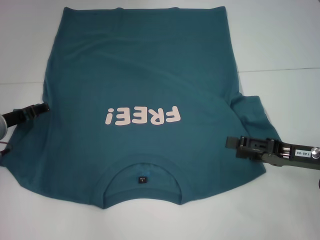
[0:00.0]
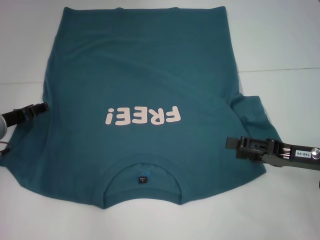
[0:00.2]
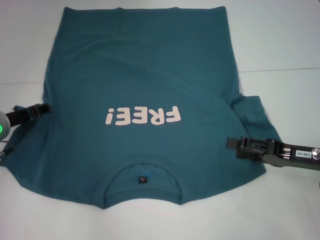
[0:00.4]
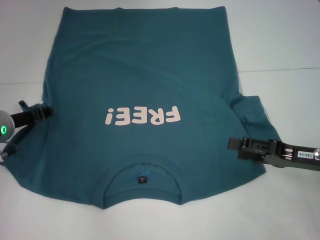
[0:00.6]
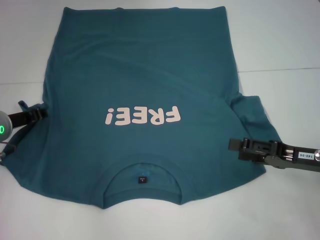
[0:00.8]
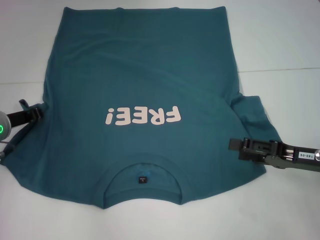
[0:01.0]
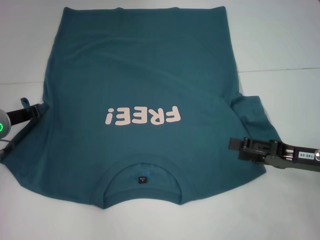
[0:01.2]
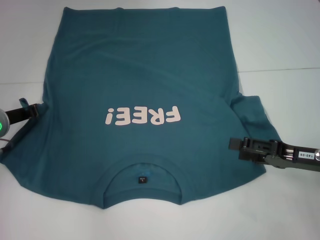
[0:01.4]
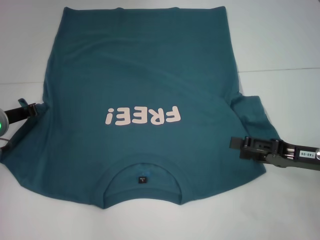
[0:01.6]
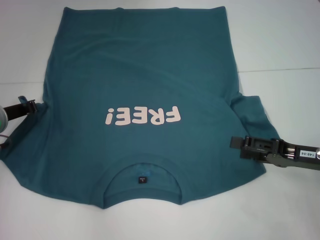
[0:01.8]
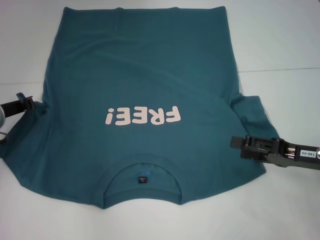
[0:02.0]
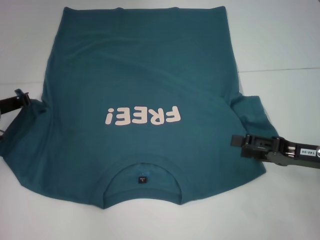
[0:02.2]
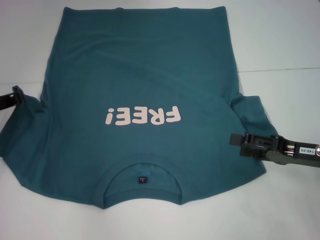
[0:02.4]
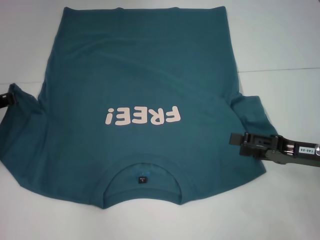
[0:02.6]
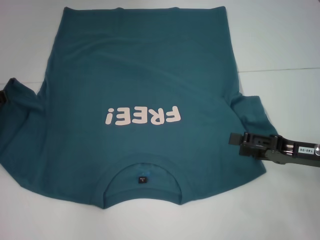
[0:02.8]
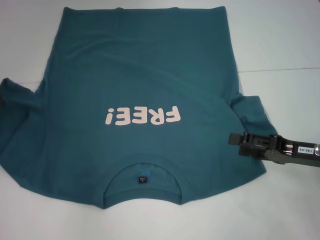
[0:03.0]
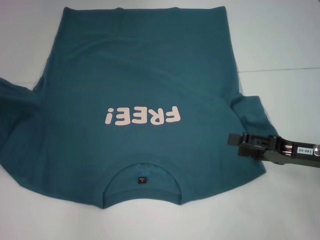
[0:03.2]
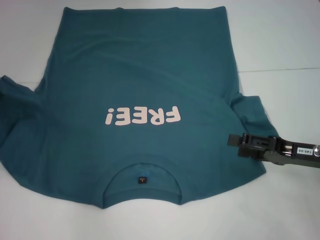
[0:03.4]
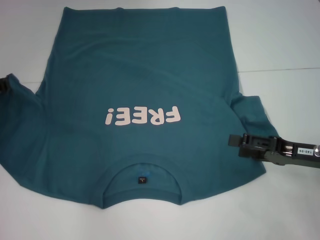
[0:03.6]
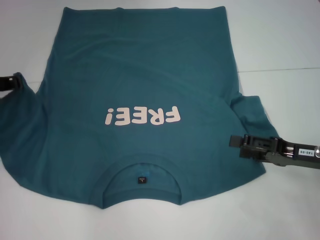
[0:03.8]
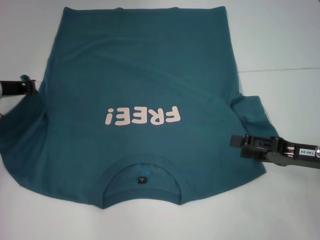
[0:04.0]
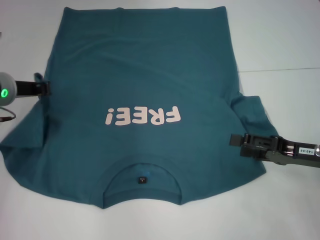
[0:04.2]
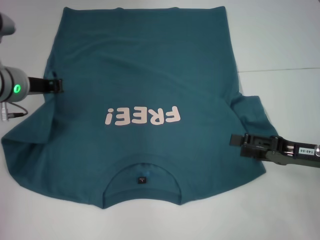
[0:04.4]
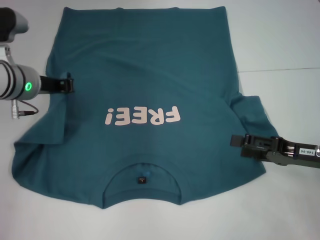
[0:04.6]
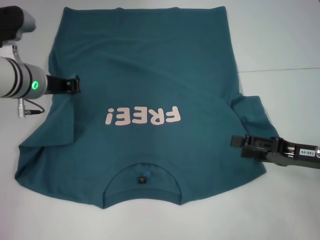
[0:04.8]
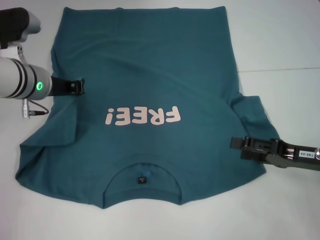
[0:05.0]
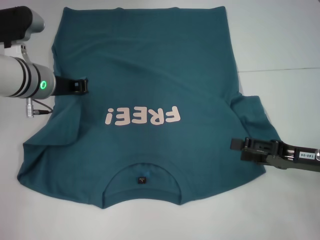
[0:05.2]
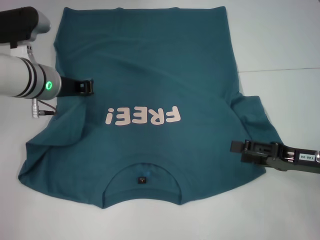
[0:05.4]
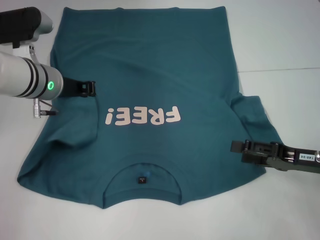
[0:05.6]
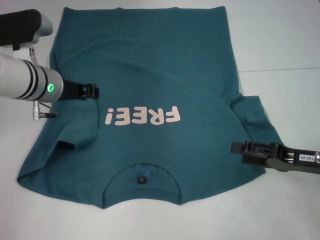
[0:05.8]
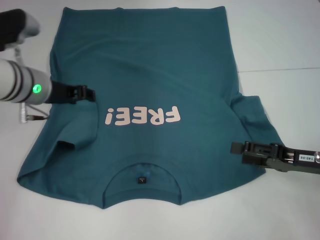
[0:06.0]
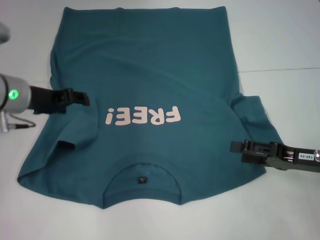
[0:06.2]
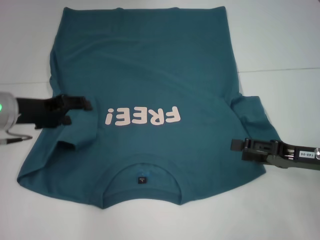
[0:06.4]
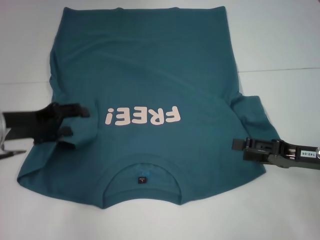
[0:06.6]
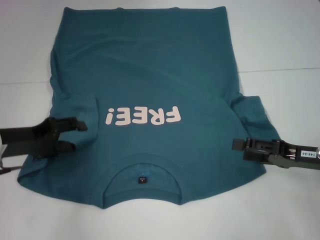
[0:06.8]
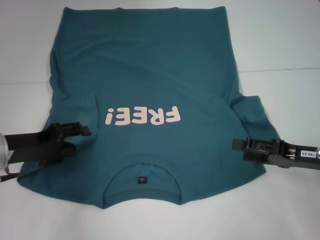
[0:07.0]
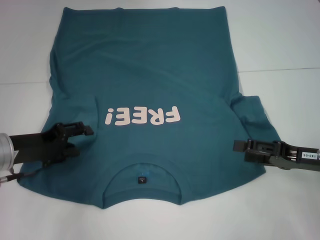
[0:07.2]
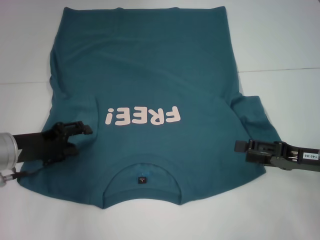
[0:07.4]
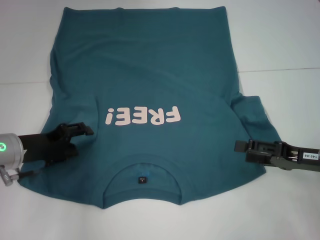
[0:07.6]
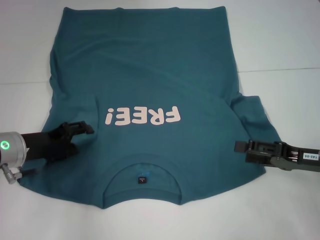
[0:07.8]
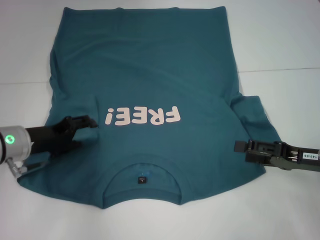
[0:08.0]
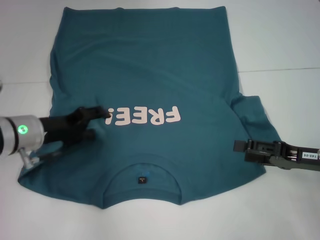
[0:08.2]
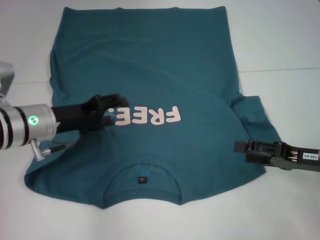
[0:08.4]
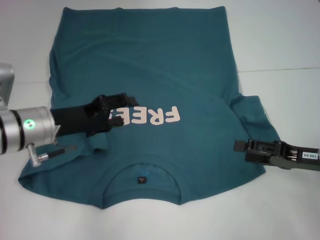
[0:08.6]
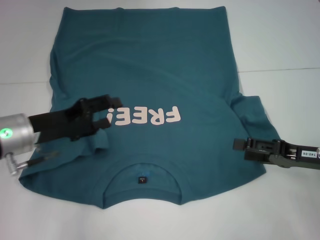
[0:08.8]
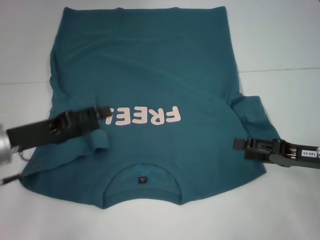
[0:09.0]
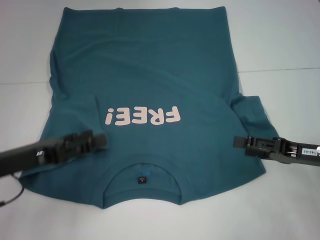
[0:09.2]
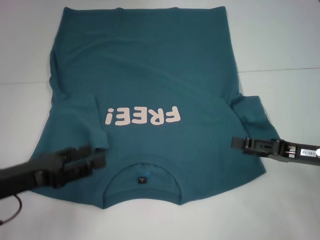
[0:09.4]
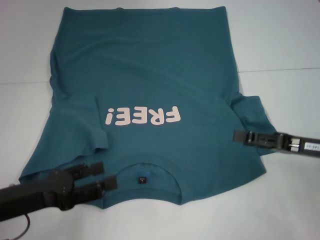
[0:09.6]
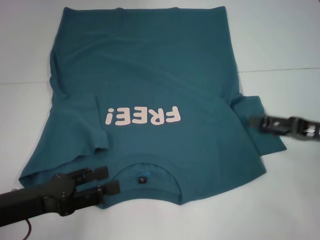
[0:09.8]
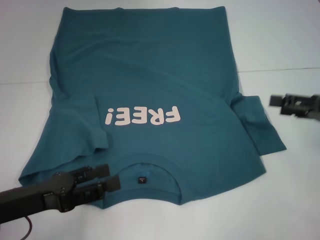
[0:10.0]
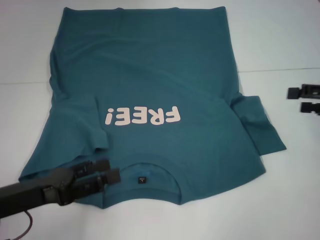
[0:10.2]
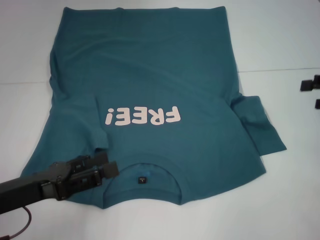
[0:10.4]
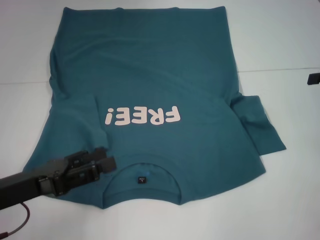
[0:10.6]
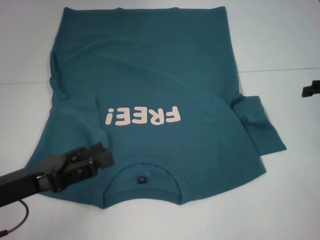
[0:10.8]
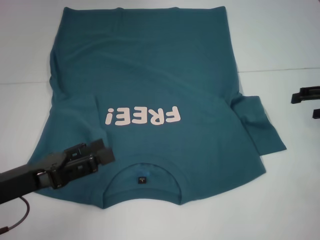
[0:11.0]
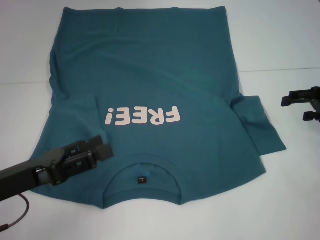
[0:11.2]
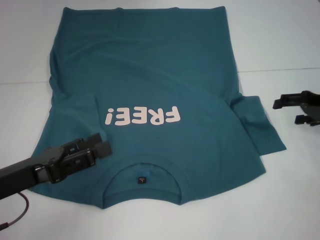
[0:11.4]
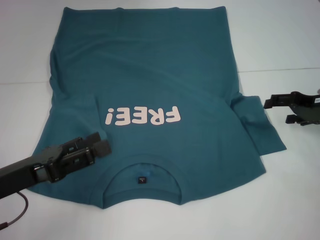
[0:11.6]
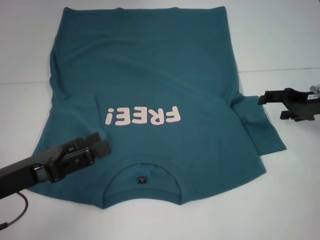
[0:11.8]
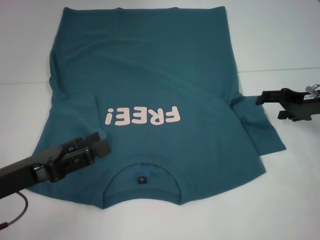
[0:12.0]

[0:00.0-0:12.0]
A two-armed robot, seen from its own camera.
Step, 0:00.0 to 0:08.6: Fold the bottom left sleeve with your left hand.
0:00.0 to 0:01.6: The left gripper closes its fingers.
0:01.6 to 0:03.0: The left gripper moves approximately 5 cm.
0:03.0 to 0:04.4: The left gripper is displaced to the right by about 10 cm.
0:04.4 to 0:06.0: The grippers stay close to where they were, moving slightly.
0:06.0 to 0:07.6: The left gripper shifts approximately 10 cm backward, downward and to the left, and opens.
0:09.0 to 0:10.4: The right gripper shifts approximately 15 cm upward and to the right. The left gripper is displaced backward by approximately 10 cm.
0:10.4 to 0:12.0: The right gripper shifts approximately 10 cm to the left, downward and forward.

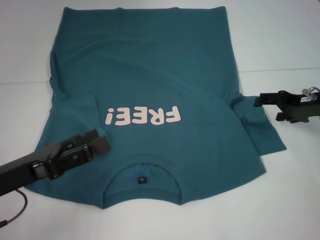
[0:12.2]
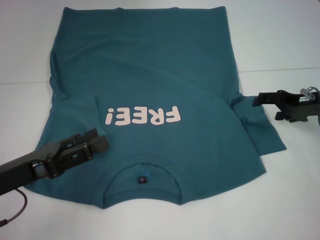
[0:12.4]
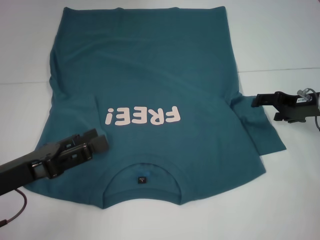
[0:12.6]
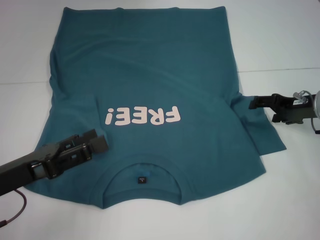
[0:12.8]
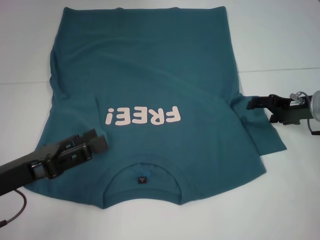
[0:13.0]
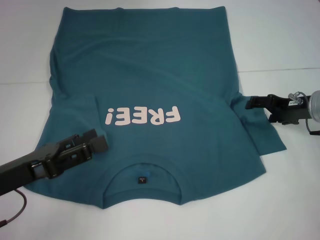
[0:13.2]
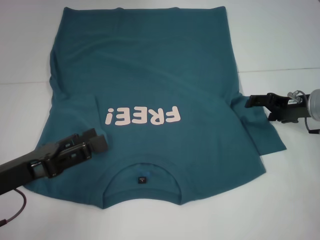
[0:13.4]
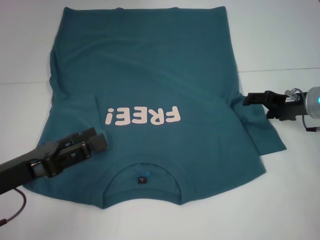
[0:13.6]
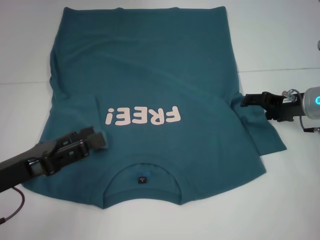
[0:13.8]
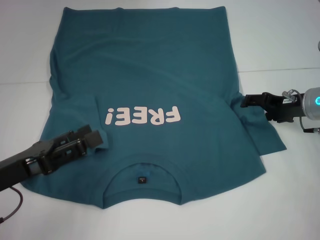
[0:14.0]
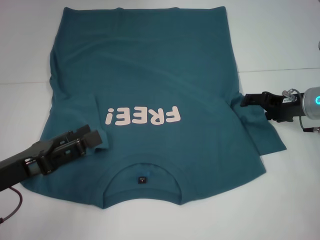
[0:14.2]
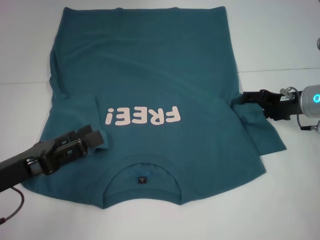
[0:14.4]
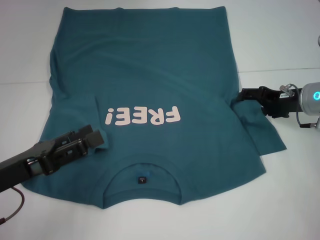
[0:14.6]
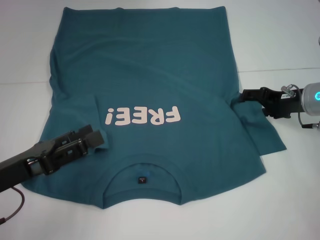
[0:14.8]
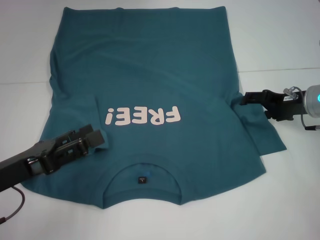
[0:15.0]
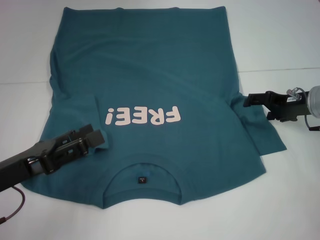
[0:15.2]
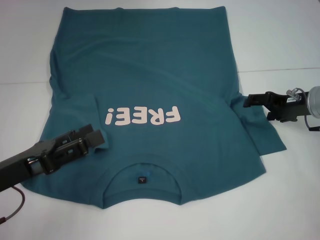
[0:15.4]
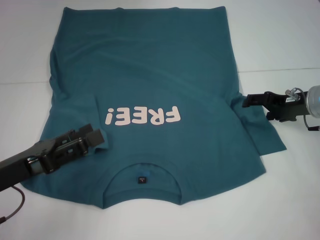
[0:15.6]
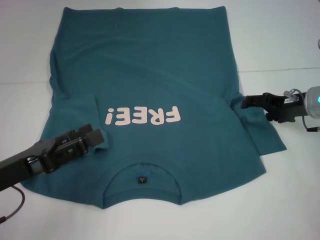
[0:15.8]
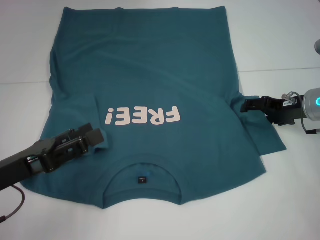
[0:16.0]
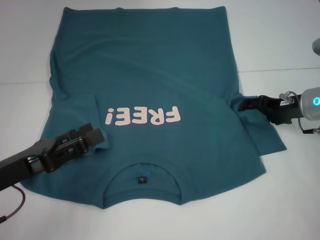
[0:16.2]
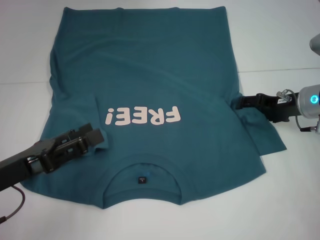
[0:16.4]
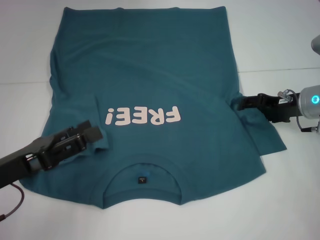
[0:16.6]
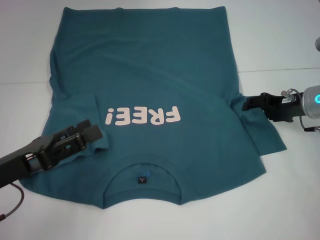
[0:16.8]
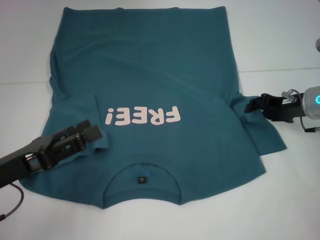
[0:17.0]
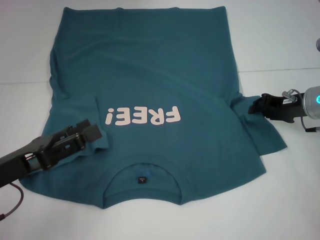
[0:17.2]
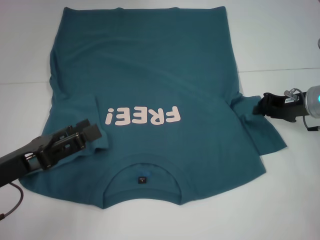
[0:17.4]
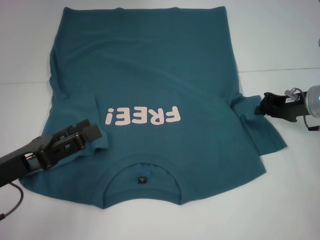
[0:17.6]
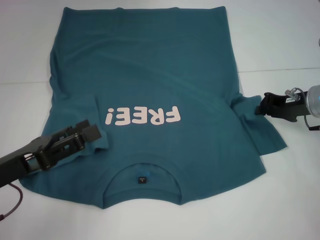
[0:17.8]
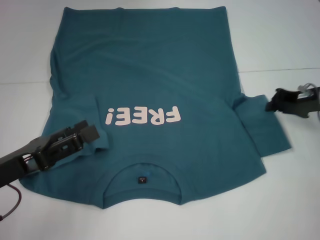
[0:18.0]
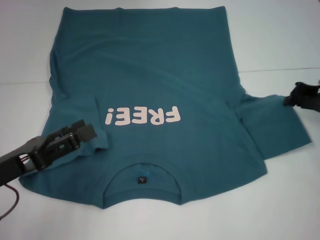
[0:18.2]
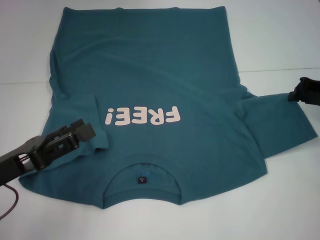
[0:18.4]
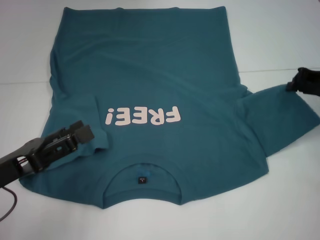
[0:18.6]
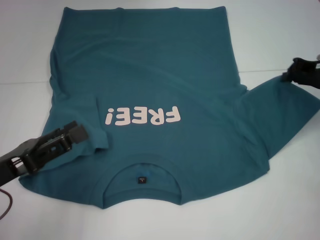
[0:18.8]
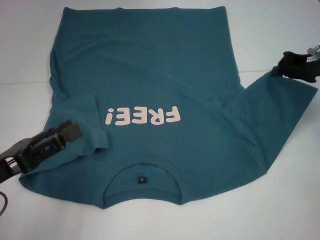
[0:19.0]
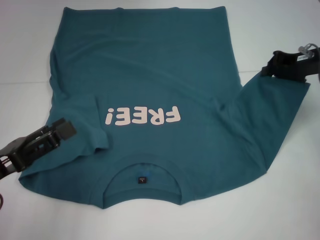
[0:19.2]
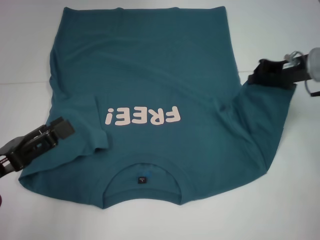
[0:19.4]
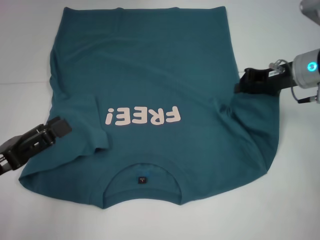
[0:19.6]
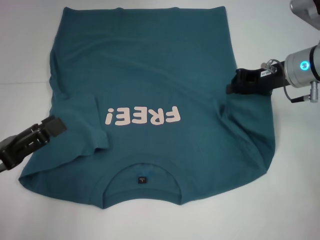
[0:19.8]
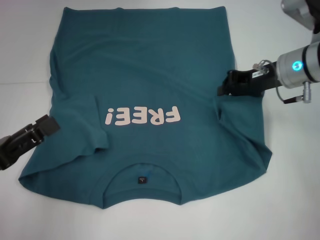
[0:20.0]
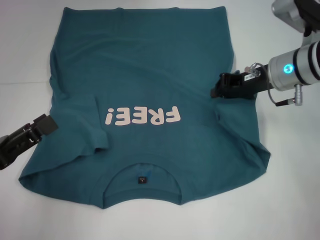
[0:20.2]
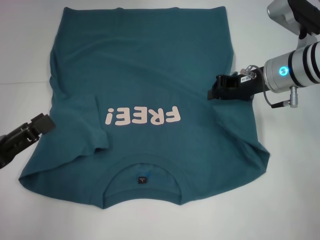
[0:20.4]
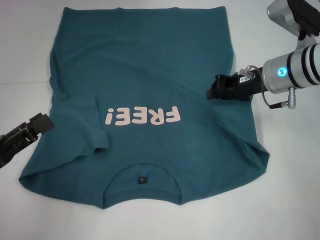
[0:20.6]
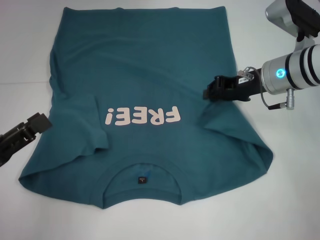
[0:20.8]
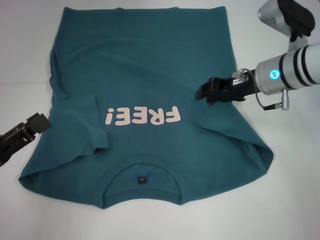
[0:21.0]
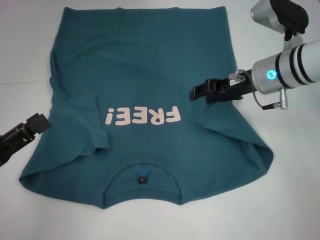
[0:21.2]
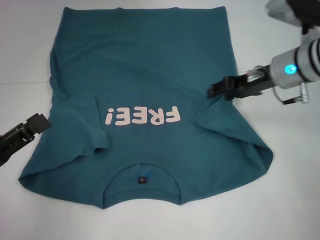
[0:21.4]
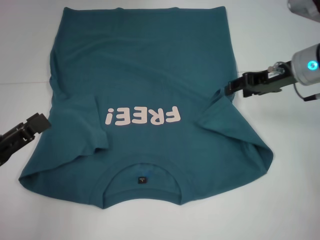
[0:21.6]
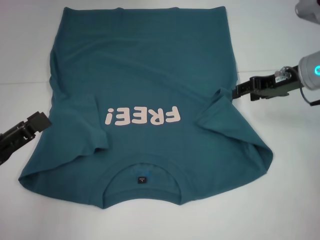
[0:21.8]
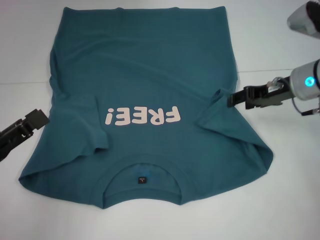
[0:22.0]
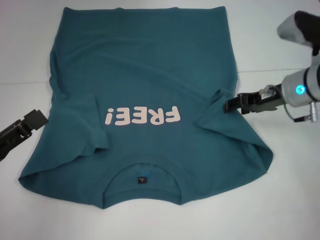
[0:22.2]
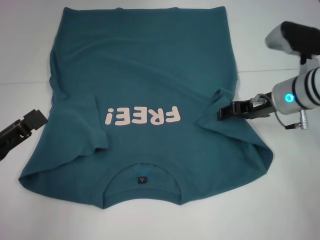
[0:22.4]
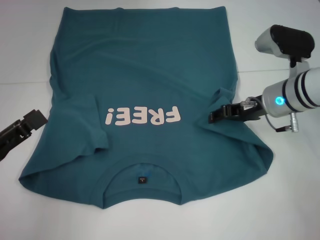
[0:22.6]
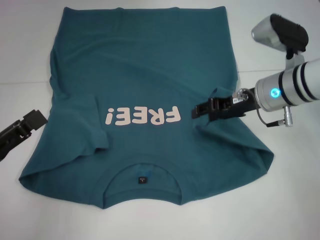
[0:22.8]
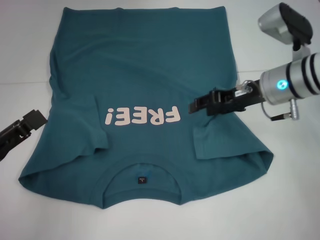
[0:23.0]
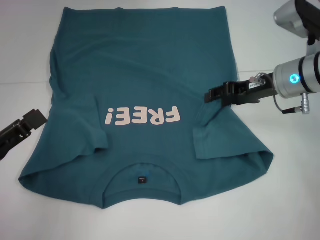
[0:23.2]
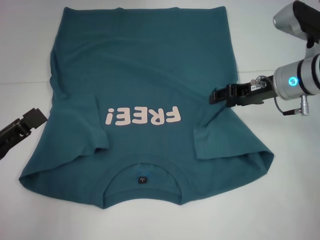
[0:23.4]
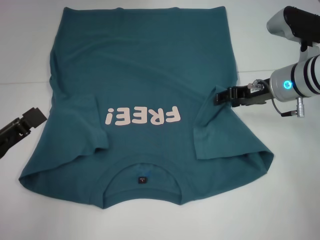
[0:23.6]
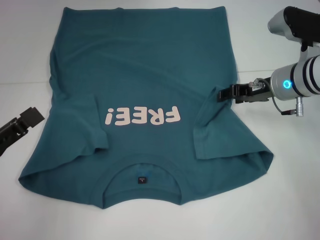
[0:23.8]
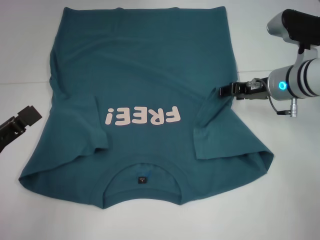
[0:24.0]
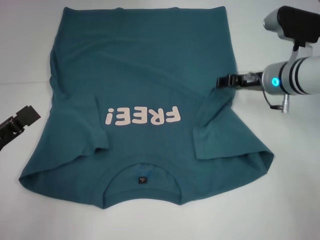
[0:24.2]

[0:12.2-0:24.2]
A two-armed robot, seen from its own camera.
0:12.2 to 0:13.8: The grippers make only small movements.
0:13.8 to 0:15.2: Both grippers stay put.
0:15.2 to 0:16.6: The grippers make only small movements.
0:16.6 to 0:18.2: The right gripper moves to the right, roughly 5 cm, and closes its fingers.
0:18.2 to 0:19.8: The right gripper goes about 10 cm to the left.
0:19.8 to 0:21.2: The right gripper opens its fingers.
0:22.6 to 0:24.2: The grippers stay close to where they were, moving slightly.
